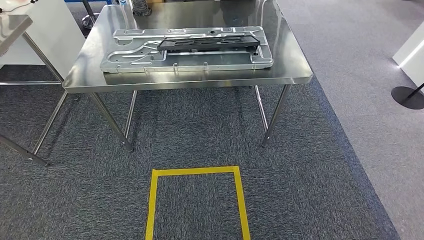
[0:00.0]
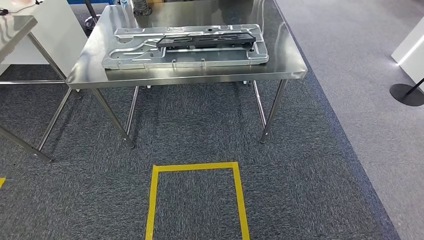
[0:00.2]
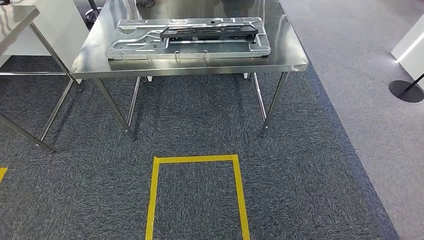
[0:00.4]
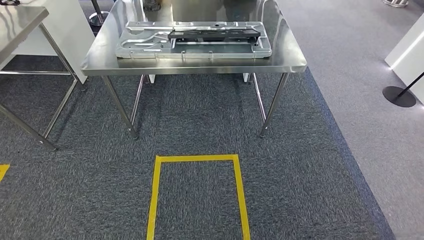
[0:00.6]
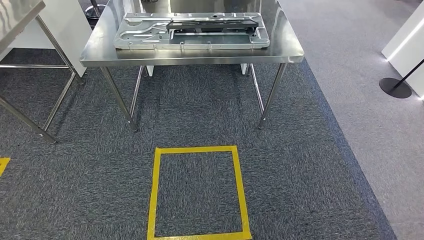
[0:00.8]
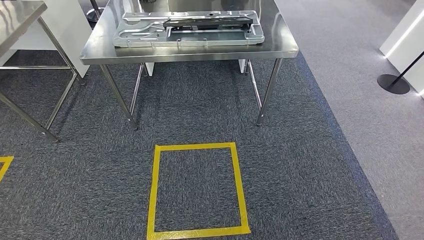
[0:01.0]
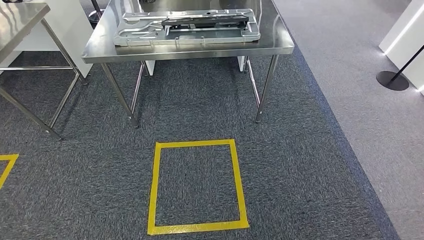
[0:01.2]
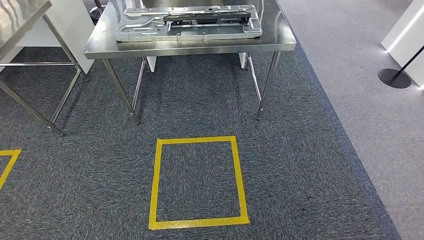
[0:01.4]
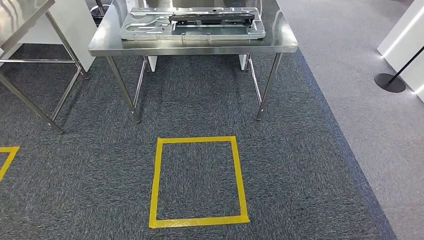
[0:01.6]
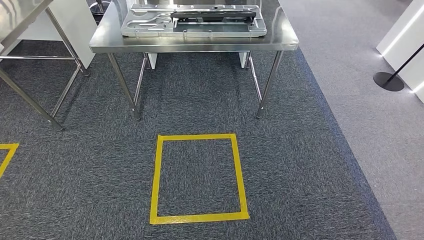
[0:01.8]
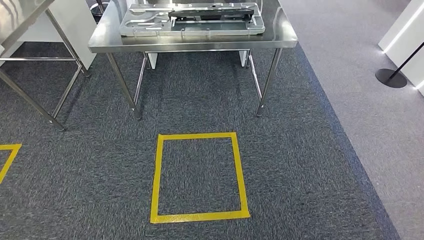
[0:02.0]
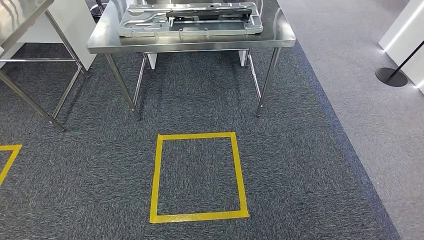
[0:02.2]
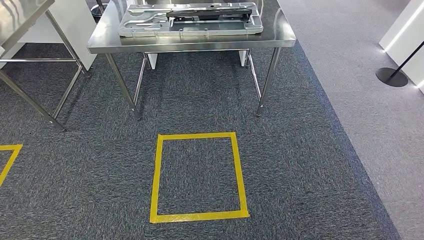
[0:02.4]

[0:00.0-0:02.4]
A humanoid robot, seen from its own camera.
Step, 0:00.0 to 0:02.4: Move to the initial position of the shelf.
